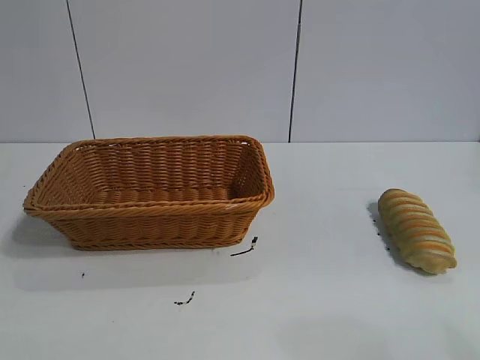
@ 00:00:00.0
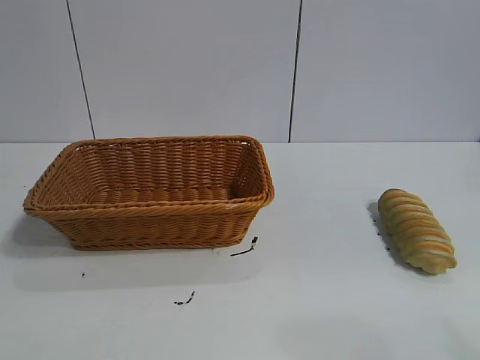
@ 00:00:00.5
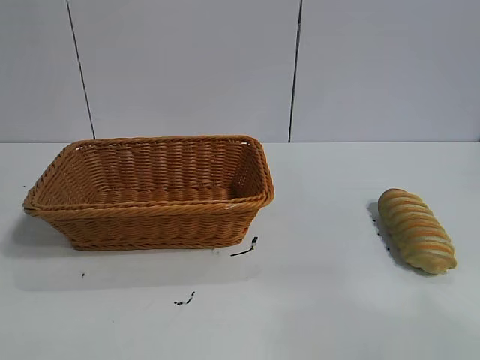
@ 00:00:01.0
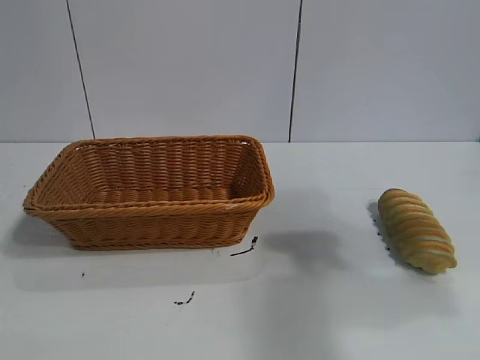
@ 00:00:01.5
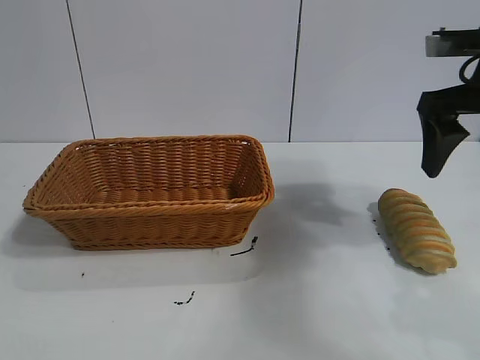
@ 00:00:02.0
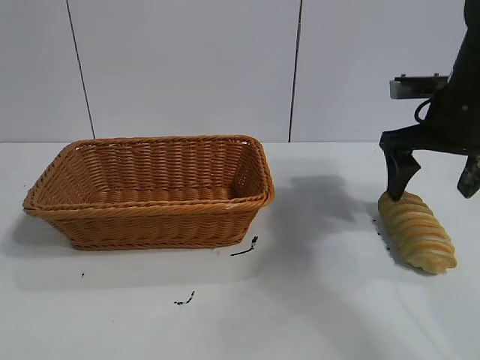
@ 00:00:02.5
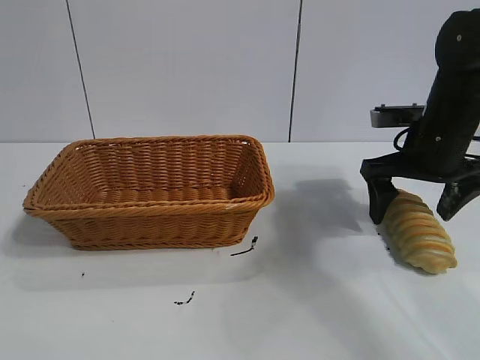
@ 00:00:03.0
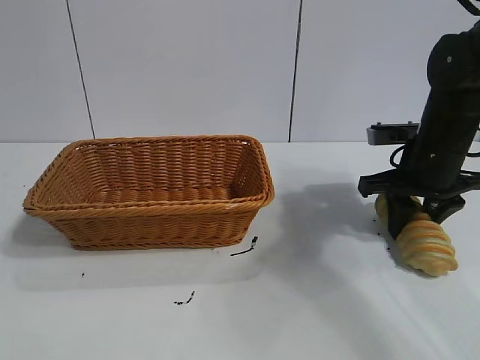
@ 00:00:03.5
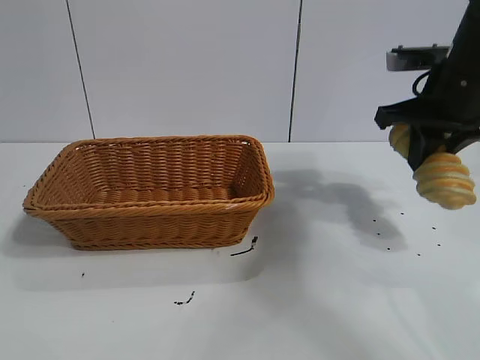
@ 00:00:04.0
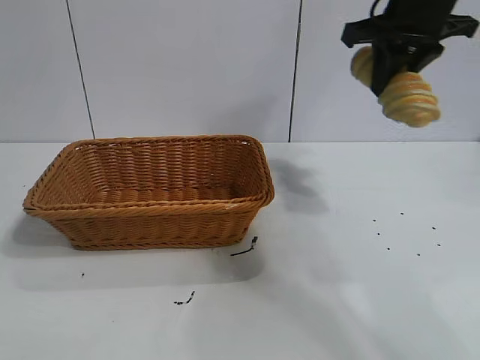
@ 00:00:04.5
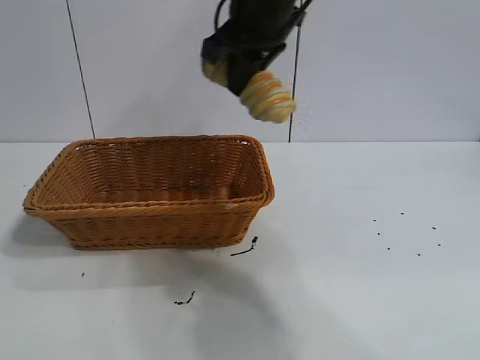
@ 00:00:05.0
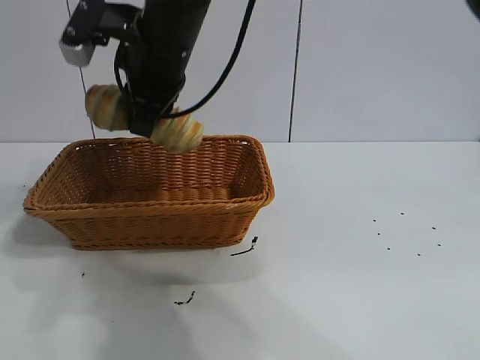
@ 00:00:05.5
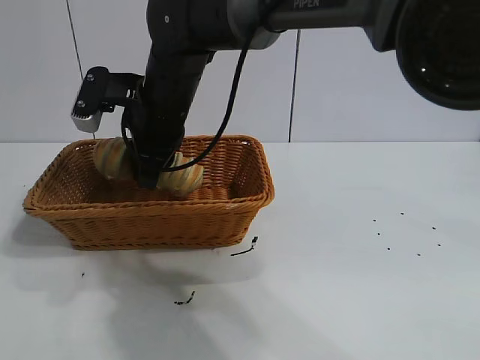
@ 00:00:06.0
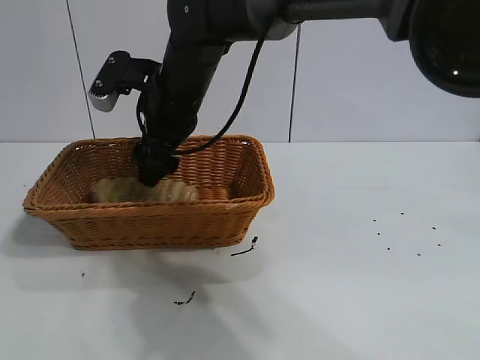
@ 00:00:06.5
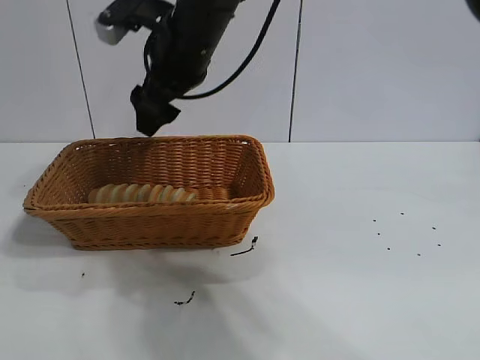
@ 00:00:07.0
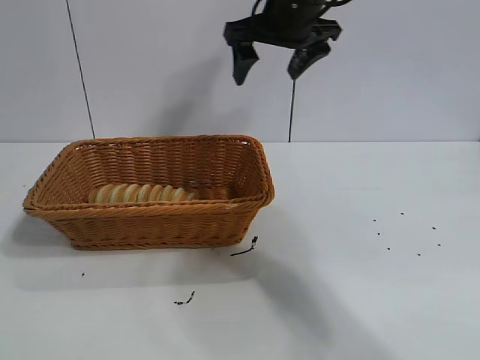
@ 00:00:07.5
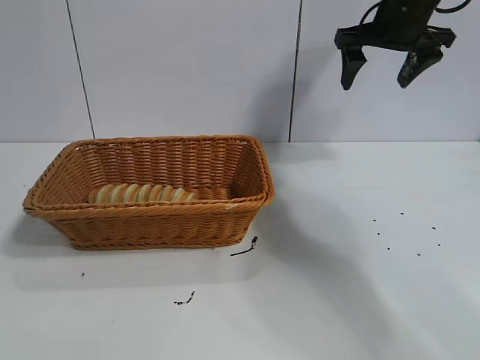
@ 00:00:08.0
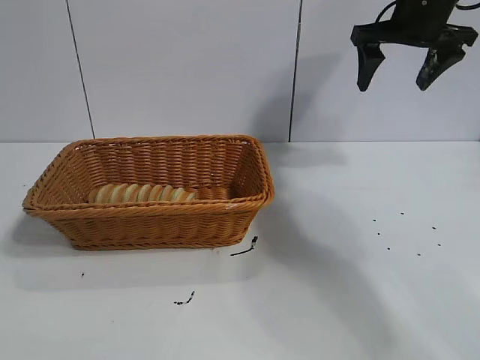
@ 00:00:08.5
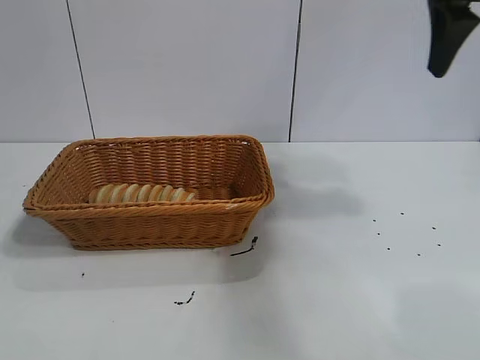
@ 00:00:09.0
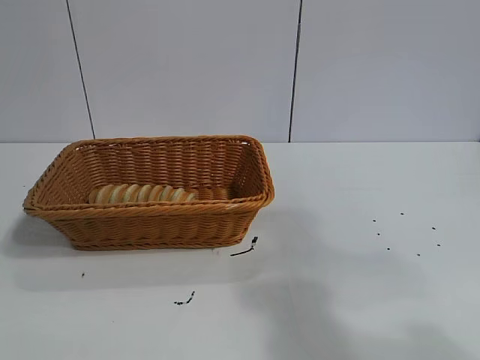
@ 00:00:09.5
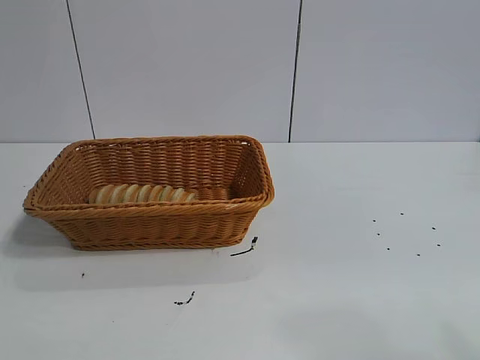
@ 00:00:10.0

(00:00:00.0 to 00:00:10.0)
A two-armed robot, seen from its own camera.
Task of the whole recording: pick up the long bread and put it into the basket.
Step, 00:00:02.0 - 00:00:03.5: Grasp the long bread with right gripper.
Step, 00:00:04.0 - 00:00:06.5: Place the long bread in the basket with right gripper.
